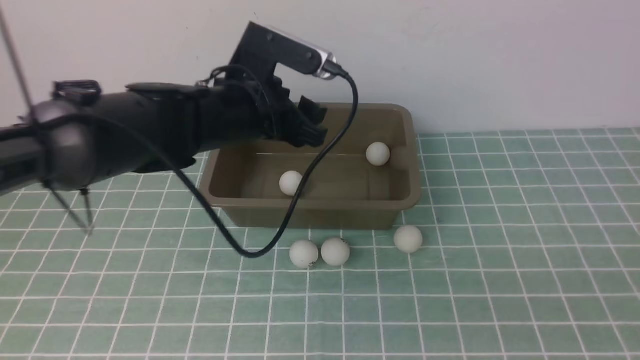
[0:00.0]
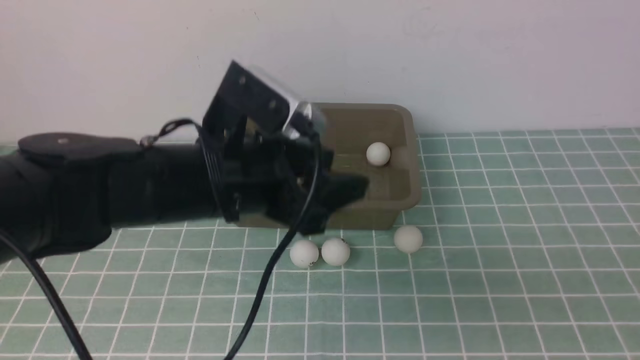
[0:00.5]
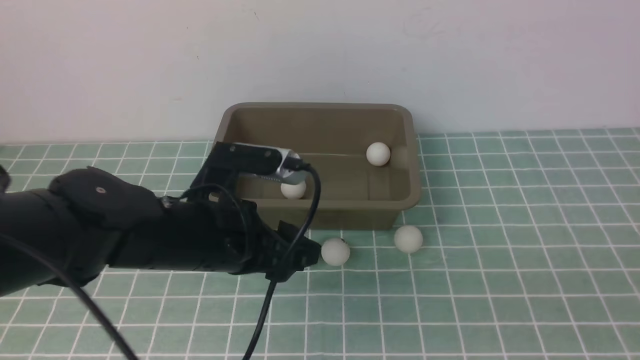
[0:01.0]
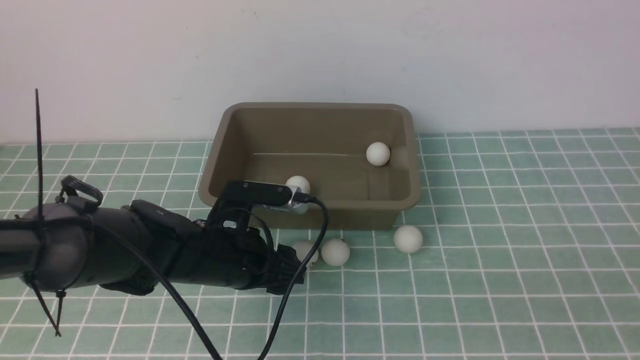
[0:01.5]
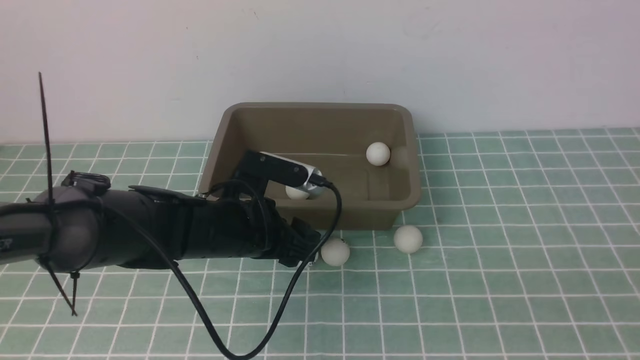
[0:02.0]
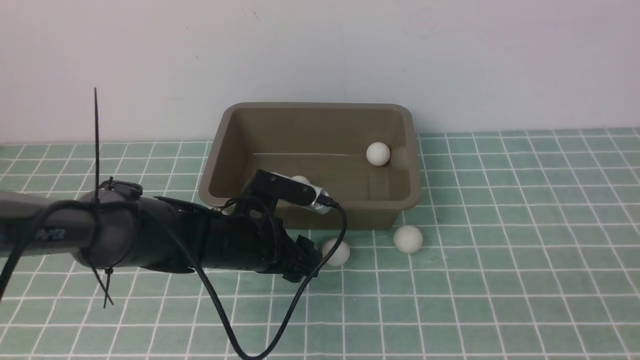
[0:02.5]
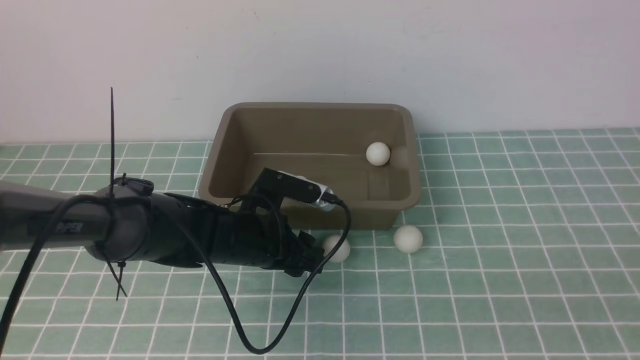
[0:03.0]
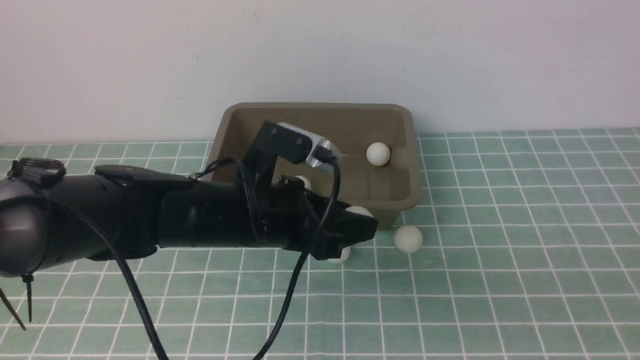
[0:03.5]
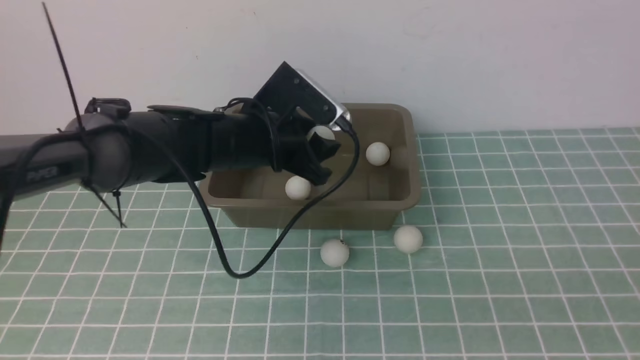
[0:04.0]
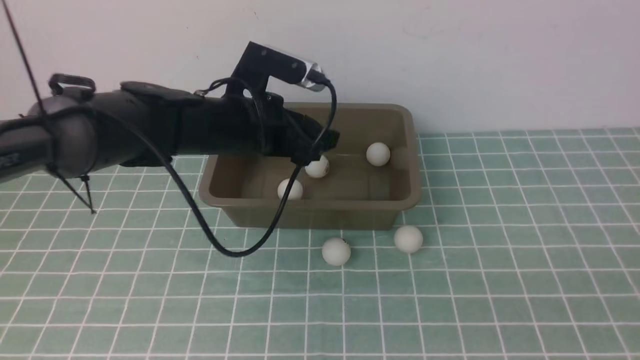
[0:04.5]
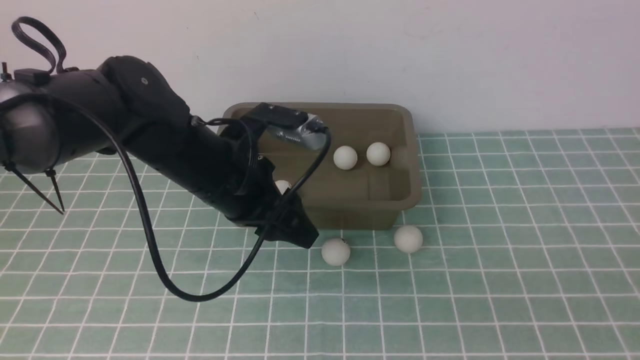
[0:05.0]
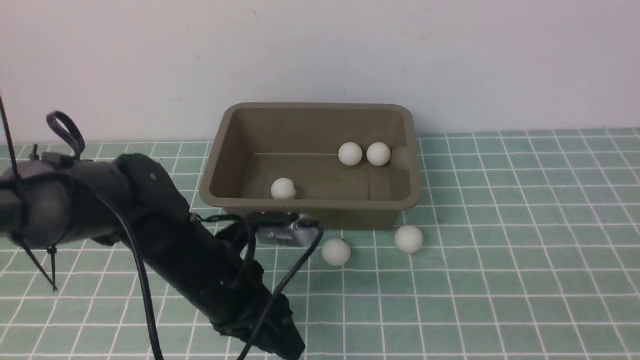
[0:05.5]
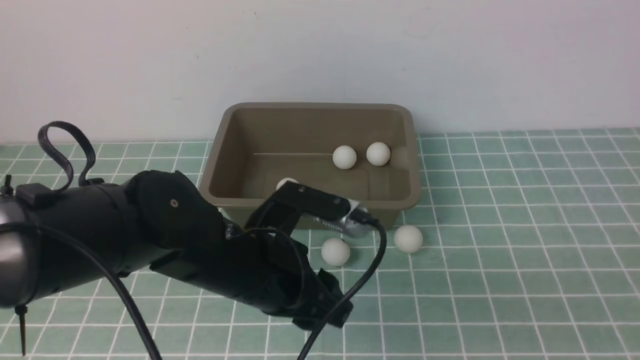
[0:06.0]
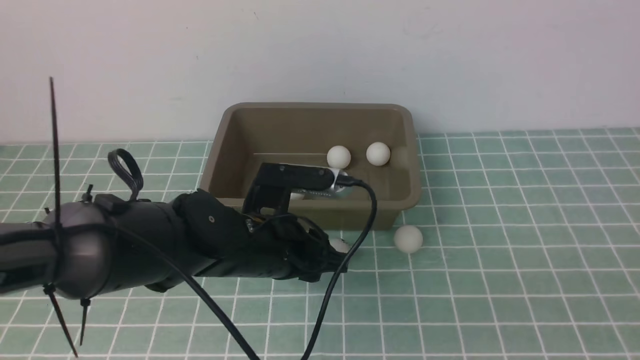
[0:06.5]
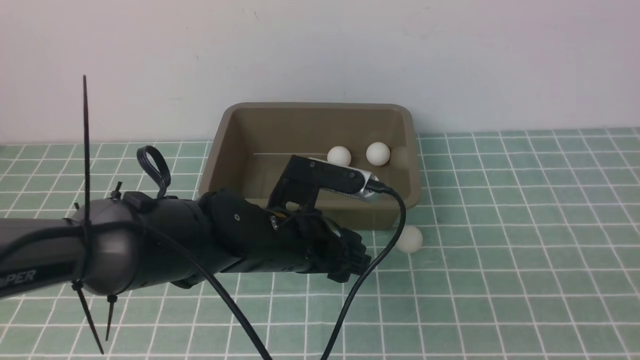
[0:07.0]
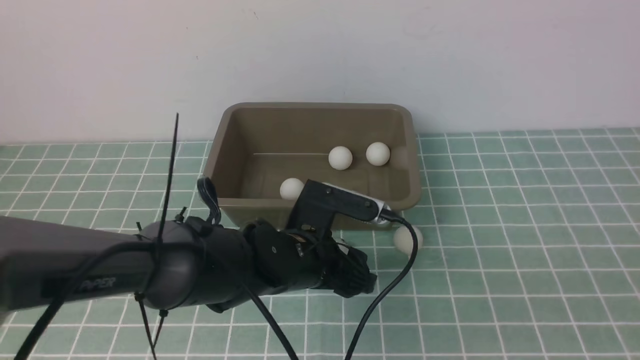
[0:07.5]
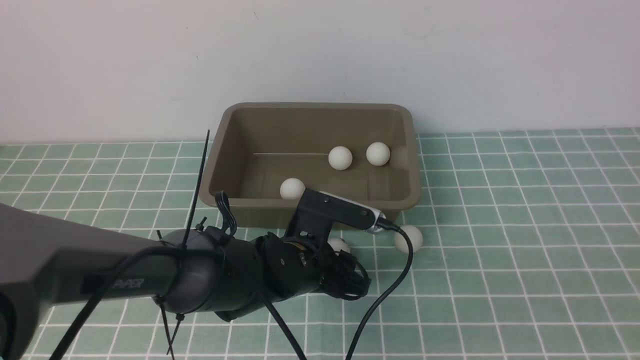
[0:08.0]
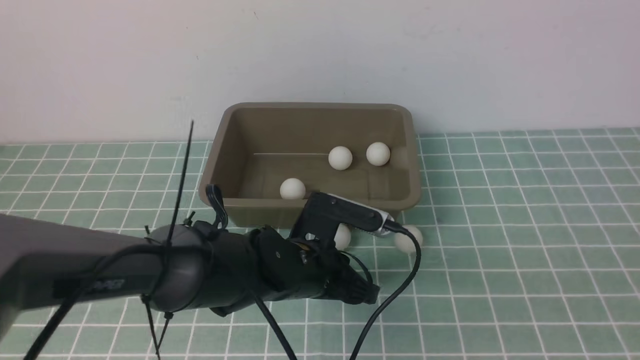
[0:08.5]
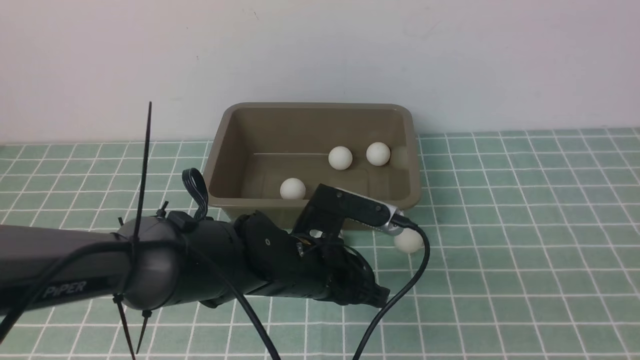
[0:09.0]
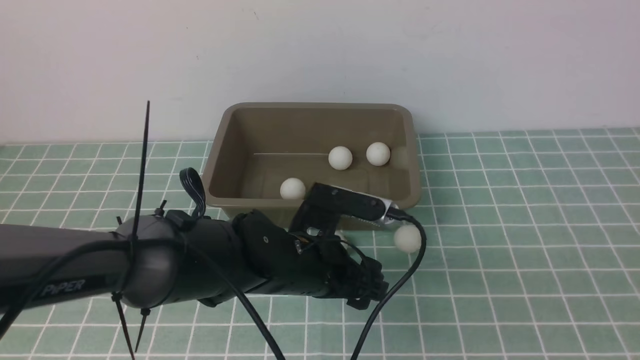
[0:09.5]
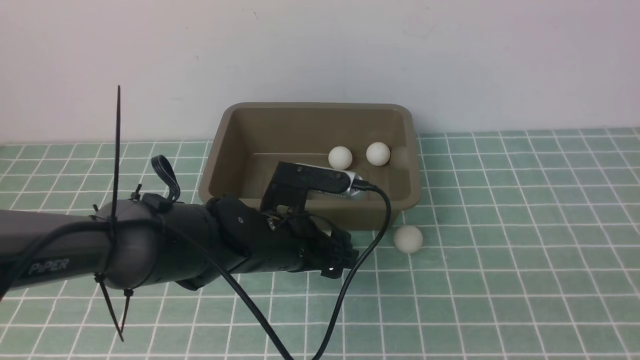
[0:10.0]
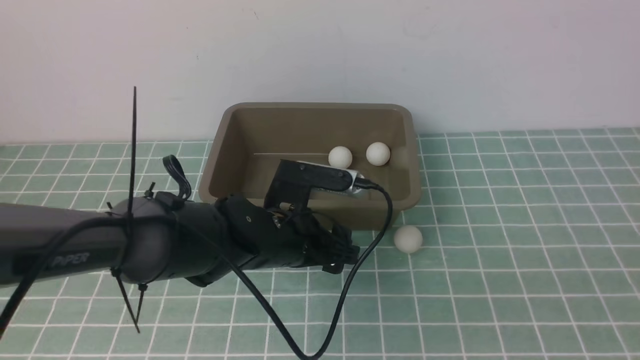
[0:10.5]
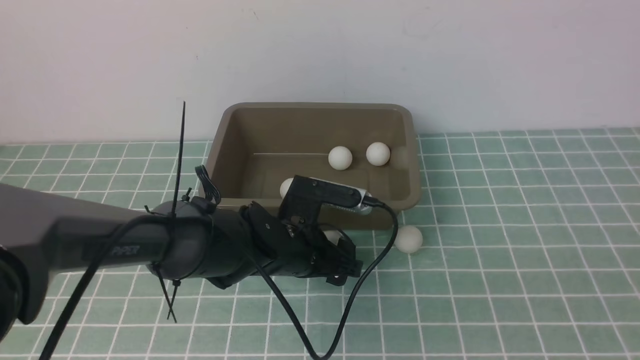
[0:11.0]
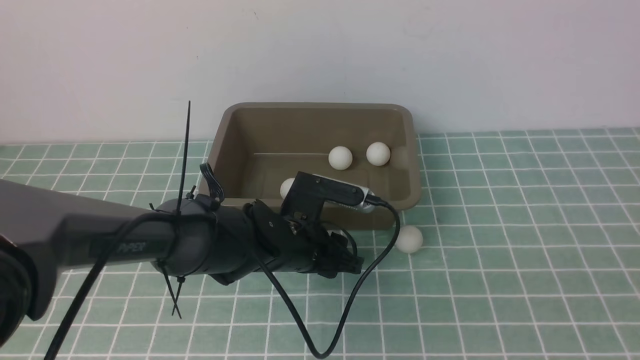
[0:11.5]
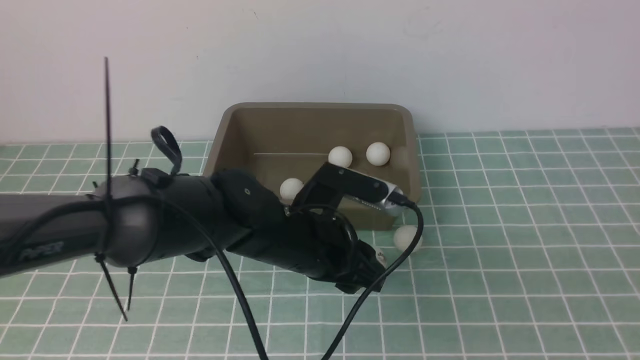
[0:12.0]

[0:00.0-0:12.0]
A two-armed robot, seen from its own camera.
Step, 0:00.0 to 0:03.0: use the left arm to clamp the table tennis ball closest to it.
Step, 0:03.5 to 0:04.0: use the left arm to put the table tennis ball into the box.
Step, 0:05.0 to 0:11.5: use the left arm to clamp the table tennis ball closest to it.
0:00.0 to 0:02.0: The left gripper heads downward and backward, covering roughly 10 cm.
0:02.0 to 0:04.0: The left gripper shifts roughly 10 cm forward and upward.
0:04.0 to 0:06.0: The left gripper goes approximately 15 cm backward.
0:06.0 to 0:08.0: The left gripper moves downward, about 10 cm, and closes its fingers.
0:08.0 to 0:10.0: The left gripper opens its fingers.
0:10.0 to 0:12.0: The left gripper travels upward by roughly 5 cm, and closes up.

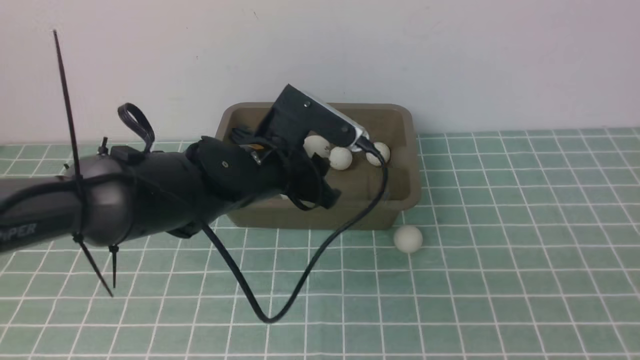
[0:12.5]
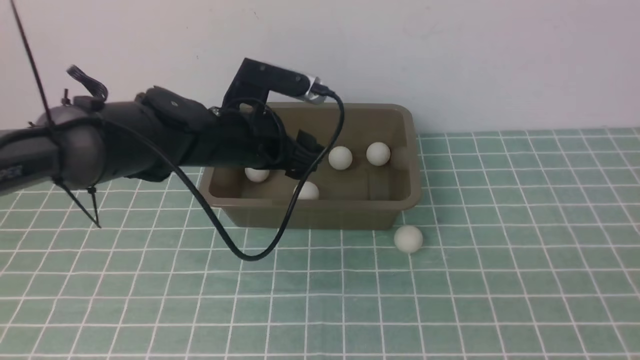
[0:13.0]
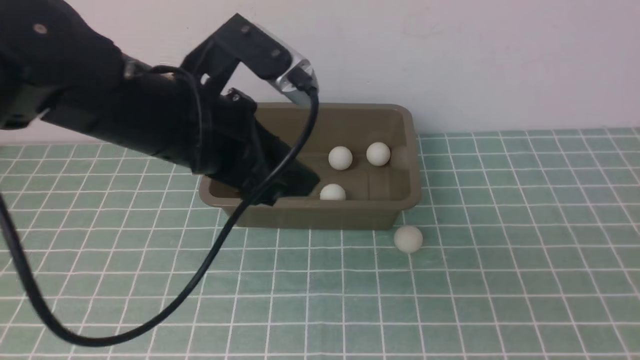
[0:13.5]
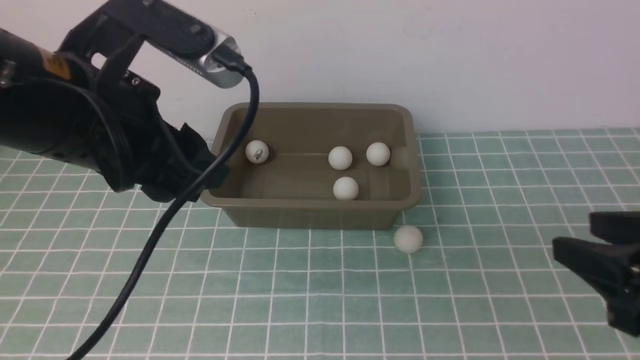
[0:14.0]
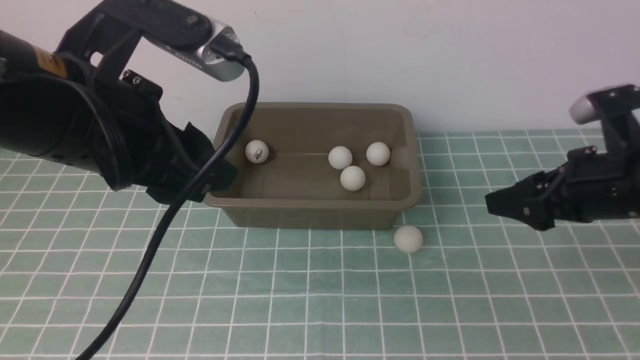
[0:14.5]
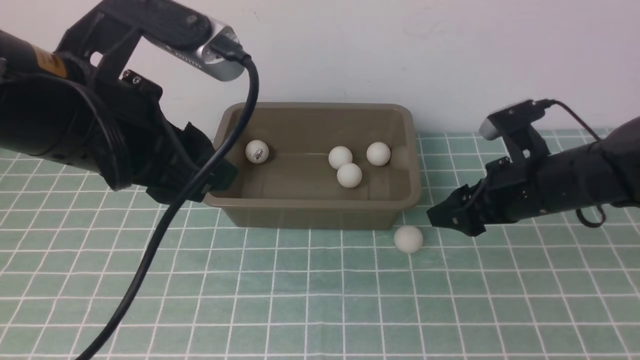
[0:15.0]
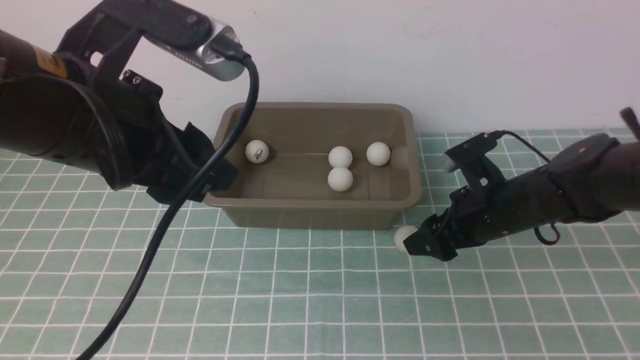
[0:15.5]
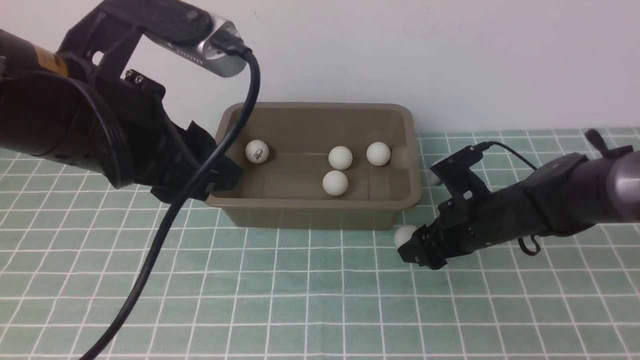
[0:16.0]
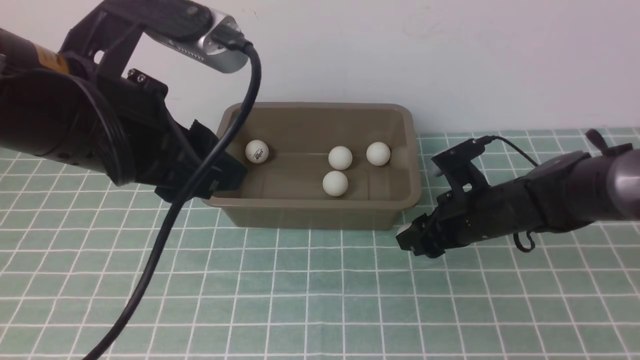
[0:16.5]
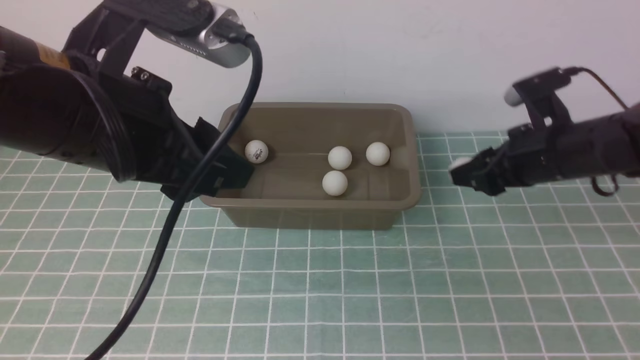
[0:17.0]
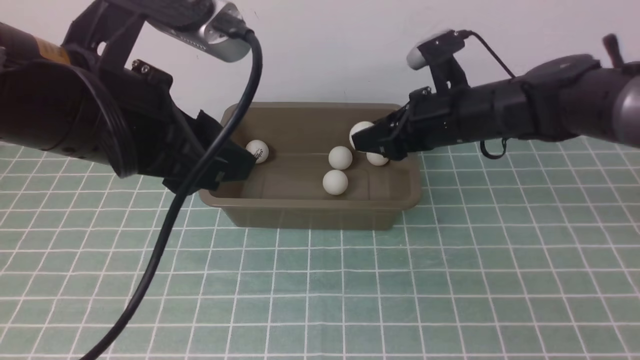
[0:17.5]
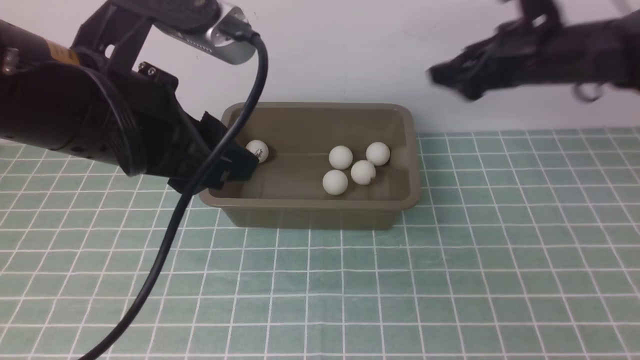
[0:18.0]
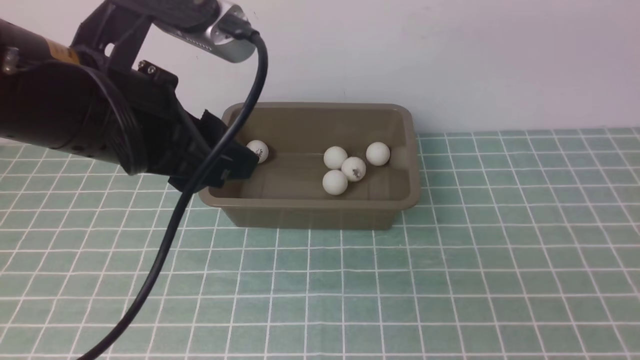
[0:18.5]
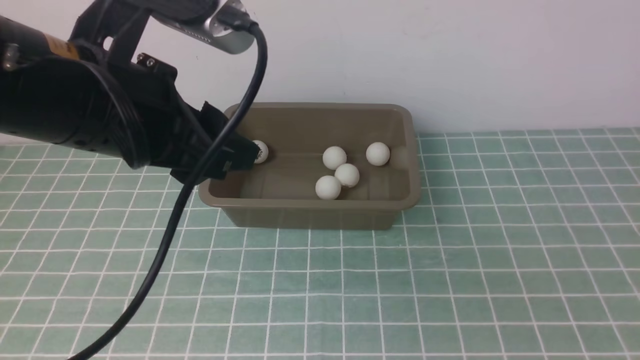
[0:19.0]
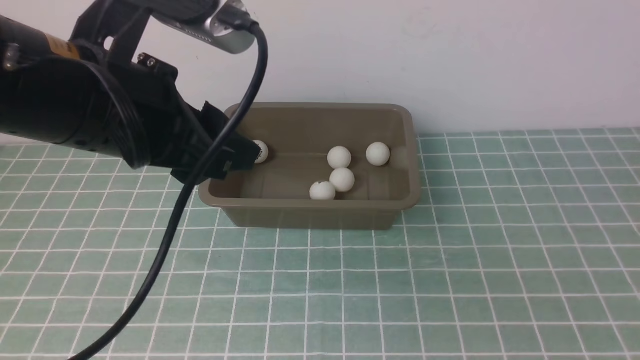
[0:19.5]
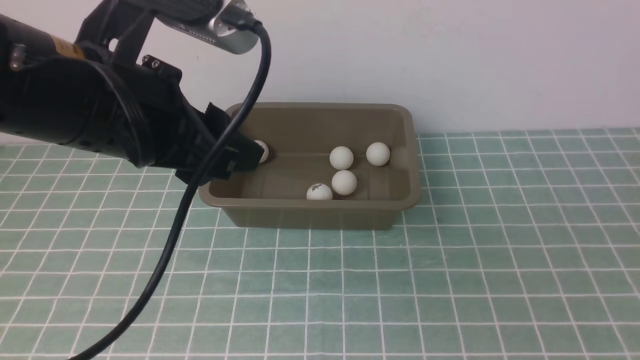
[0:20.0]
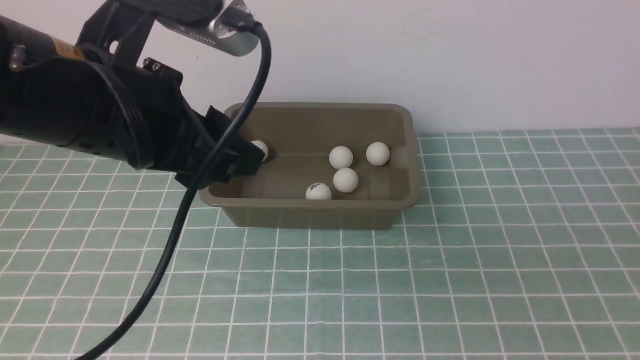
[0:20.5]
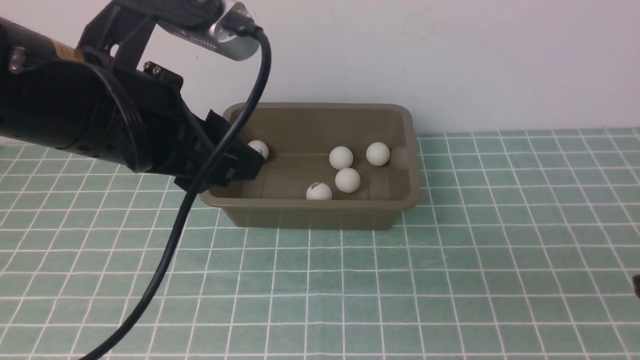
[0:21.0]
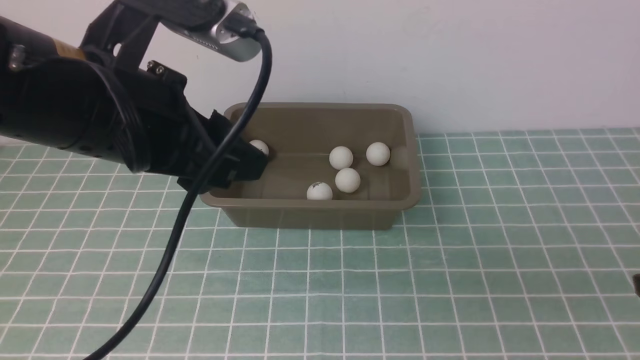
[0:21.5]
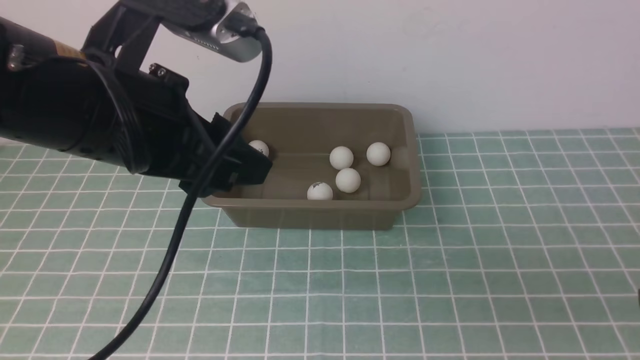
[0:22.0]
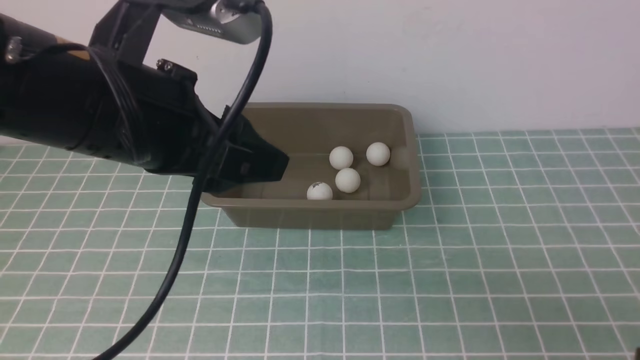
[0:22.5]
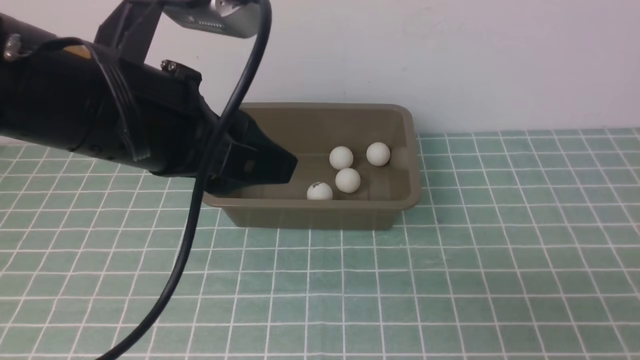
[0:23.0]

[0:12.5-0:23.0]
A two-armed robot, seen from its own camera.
Step, 0:12.5 to 0:13.0: use the left arm to put the table tennis ball into the box.
Step, 0:13.5 to 0:16.5: use the right arm to clamp the table tennis ball closest to it.
Step, 0:17.0 to 0:17.5: use the right arm to put the table tennis ball into the box.
0:12.5 to 0:14.5: The right gripper moves forward, roughly 30 cm, and opens up, while the left gripper heads upward and backward, covering some 20 cm.
0:14.5 to 0:16.5: The right gripper moves downward, forward and to the left, roughly 15 cm, and closes up.
0:16.5 to 0:19.0: The right gripper travels upward, backward and to the right by roughly 35 cm, and opens its fingers.
0:19.0 to 0:21.0: The right gripper shifts approximately 15 cm downward, and closes.
0:21.0 to 0:23.0: The right gripper moves downward, approximately 5 cm.
